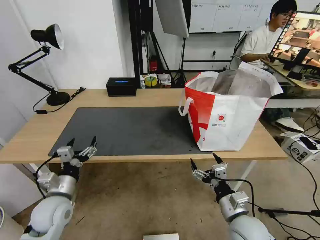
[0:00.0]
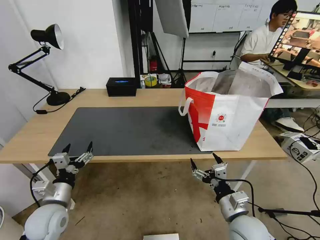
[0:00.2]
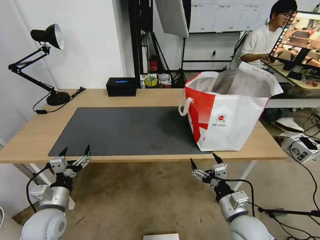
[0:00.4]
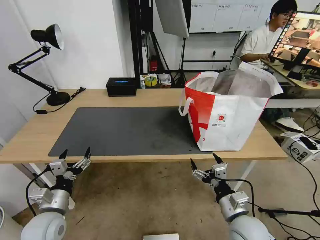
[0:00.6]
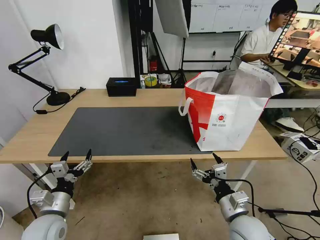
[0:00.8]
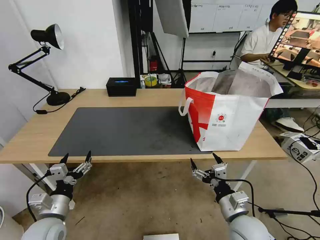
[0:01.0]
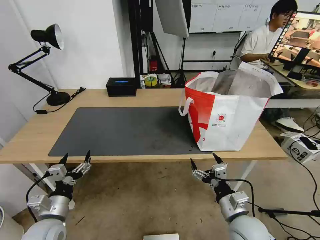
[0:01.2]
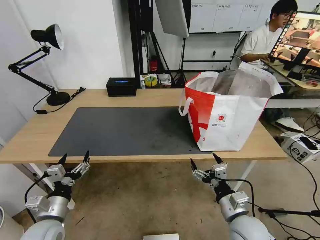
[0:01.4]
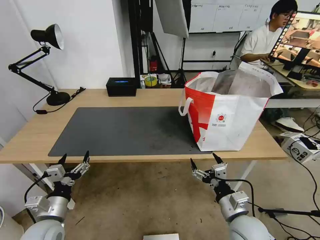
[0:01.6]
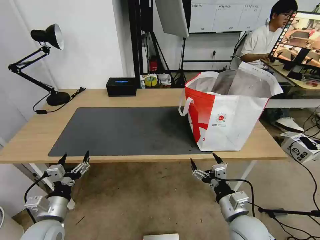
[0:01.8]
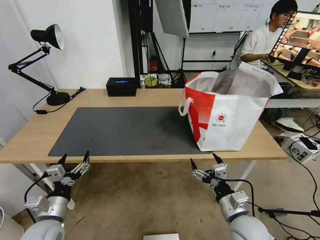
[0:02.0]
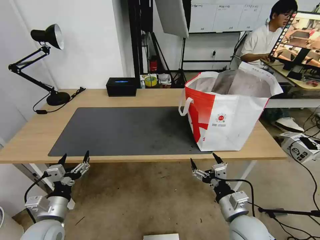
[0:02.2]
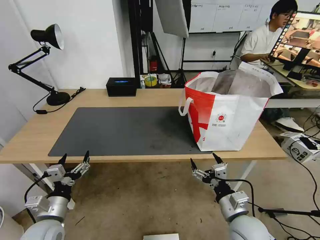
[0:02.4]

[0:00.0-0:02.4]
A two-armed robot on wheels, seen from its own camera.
Task of the whole recording: Pick up the trash from the table and place it into the takeout bag.
0:00.0 to 0:01.2: The left gripper changes place by roughly 5 cm.
0:01.2 to 0:02.4: Neither gripper changes place.

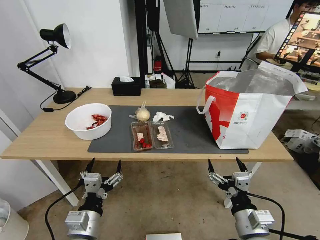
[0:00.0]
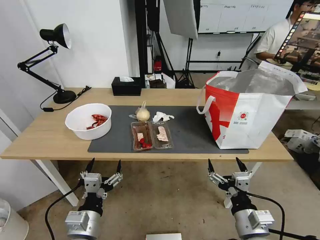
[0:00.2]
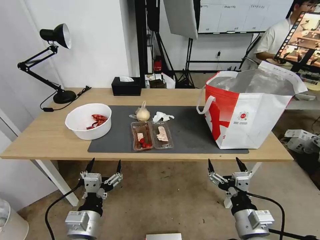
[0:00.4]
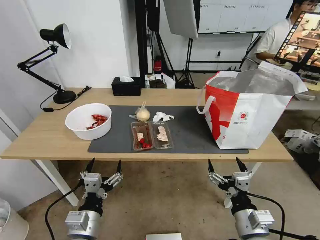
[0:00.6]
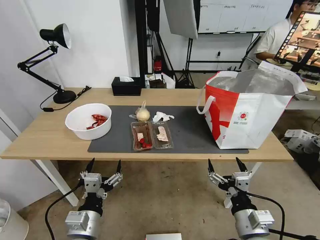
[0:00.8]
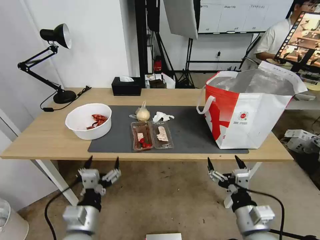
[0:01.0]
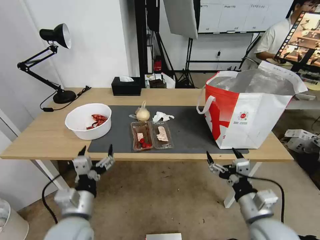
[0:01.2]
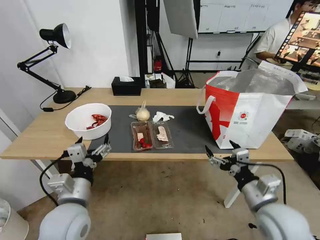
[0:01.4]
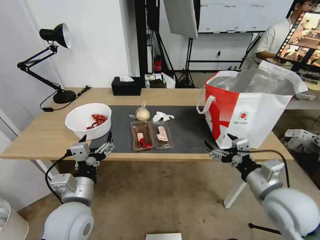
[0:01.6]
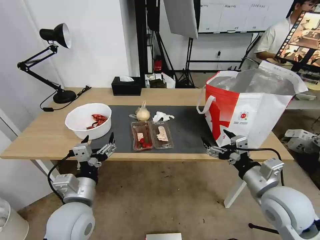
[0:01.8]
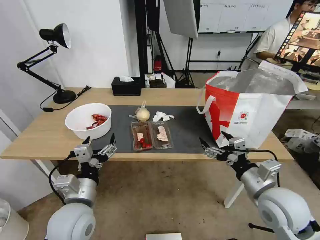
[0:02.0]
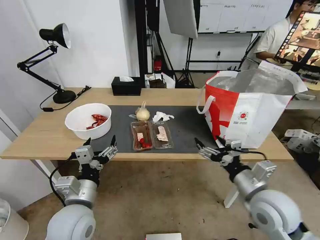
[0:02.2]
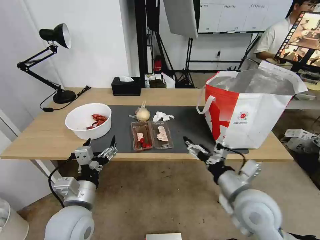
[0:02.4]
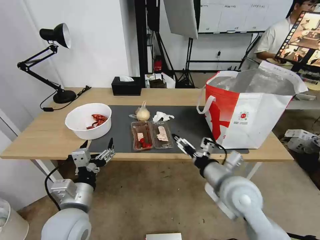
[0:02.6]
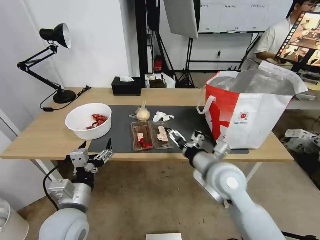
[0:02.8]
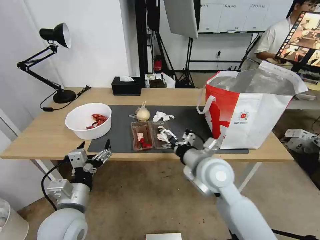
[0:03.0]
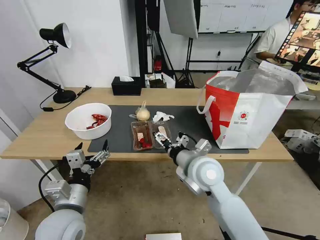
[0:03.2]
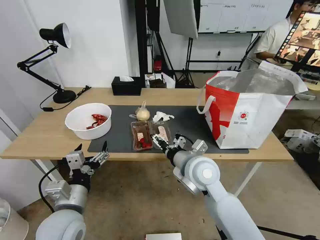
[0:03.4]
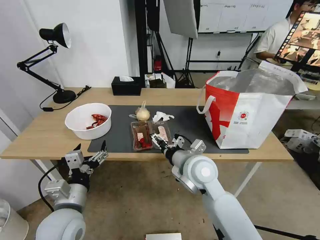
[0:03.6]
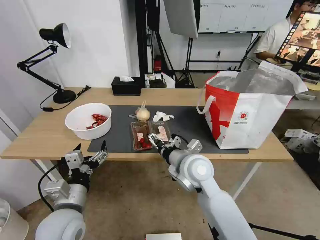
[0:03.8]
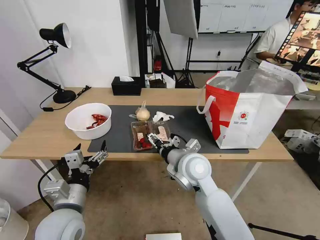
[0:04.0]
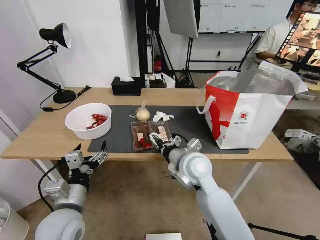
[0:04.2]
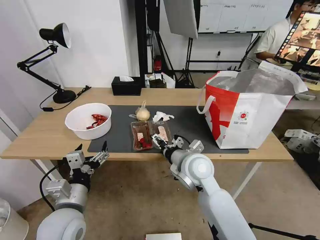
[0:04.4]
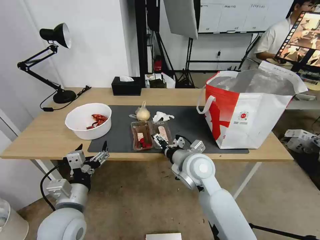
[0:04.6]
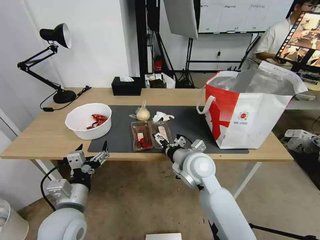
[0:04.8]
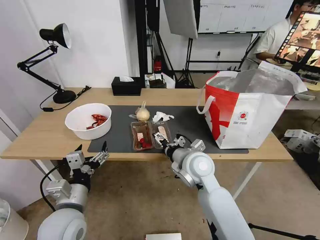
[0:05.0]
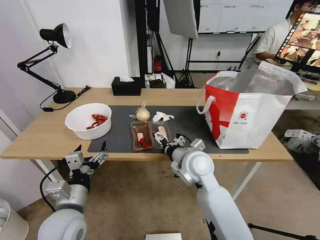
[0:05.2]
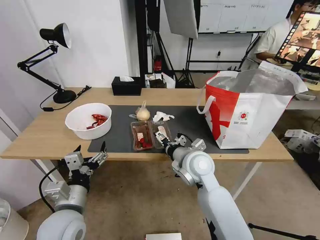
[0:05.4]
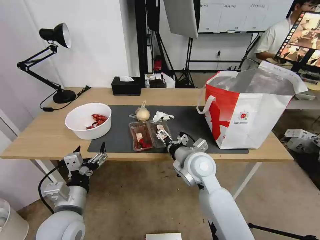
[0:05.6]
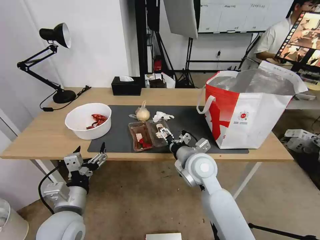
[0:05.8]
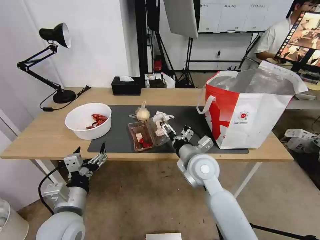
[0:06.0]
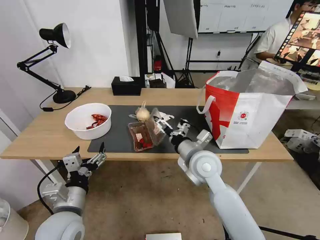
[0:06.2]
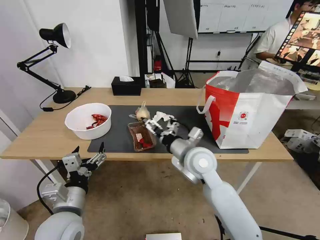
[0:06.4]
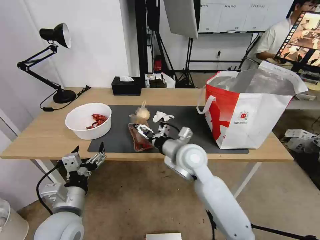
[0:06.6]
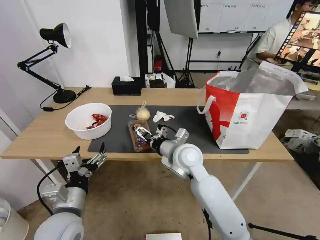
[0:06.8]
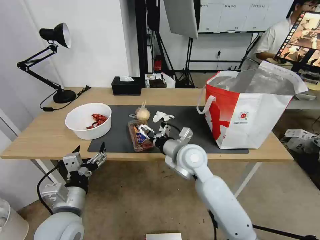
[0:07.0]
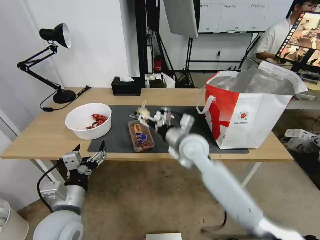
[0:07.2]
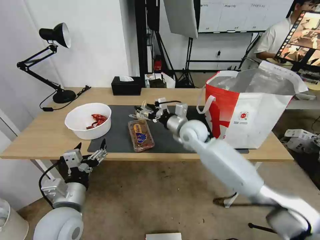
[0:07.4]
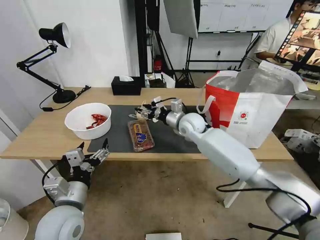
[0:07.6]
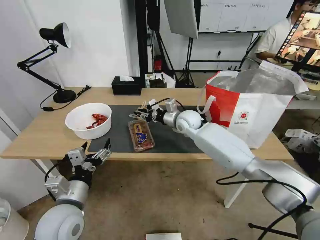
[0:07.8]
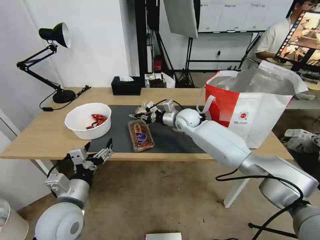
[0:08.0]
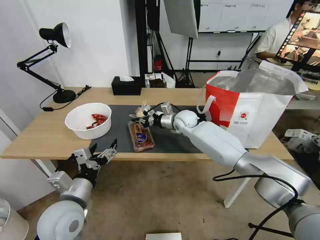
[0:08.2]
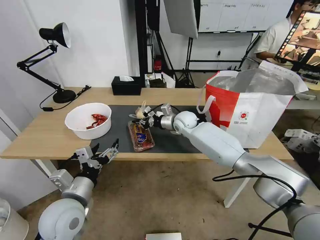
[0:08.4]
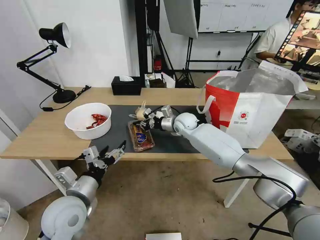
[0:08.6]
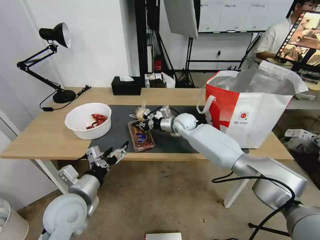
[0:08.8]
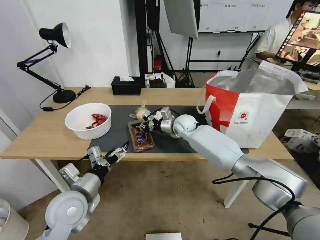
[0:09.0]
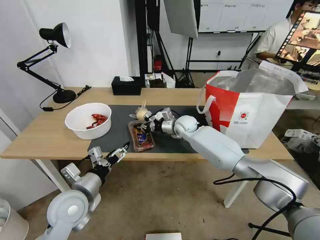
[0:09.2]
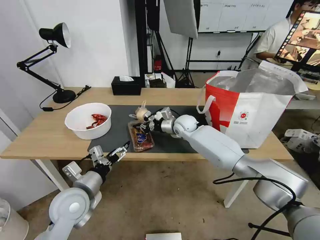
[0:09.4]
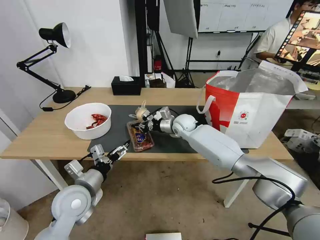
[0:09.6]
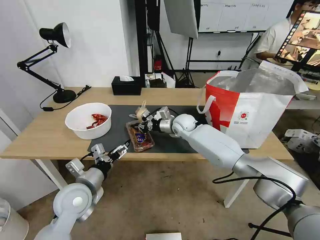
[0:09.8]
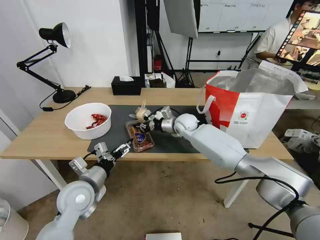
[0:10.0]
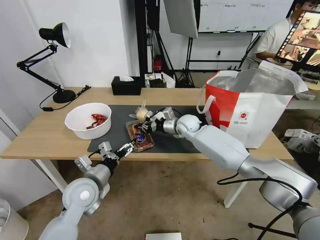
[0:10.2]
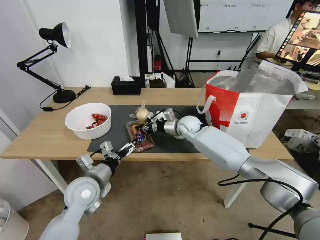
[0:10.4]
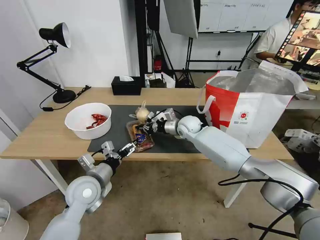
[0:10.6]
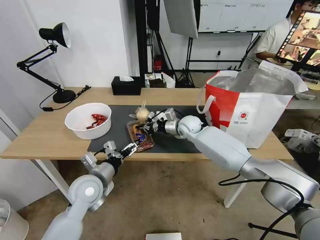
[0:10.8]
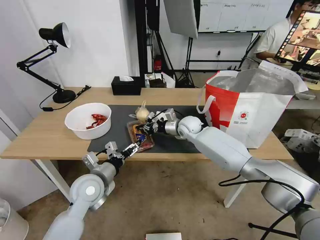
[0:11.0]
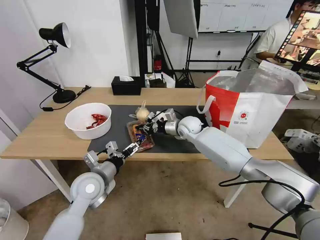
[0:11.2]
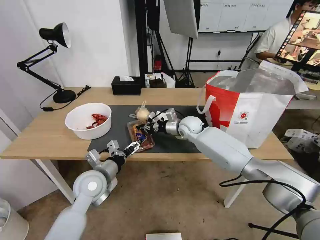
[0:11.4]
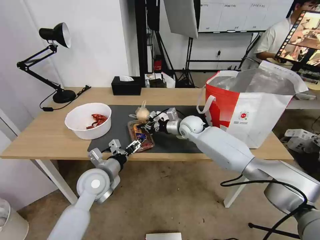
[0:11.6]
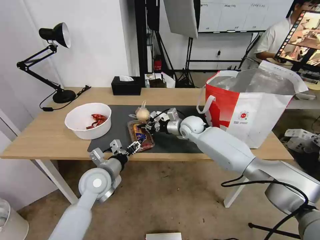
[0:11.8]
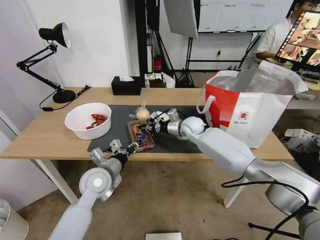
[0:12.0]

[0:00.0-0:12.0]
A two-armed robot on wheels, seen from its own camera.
Task of the whole recording: Pick up the trash from the table and place it into the takeout bag.
0:01.6 to 0:03.0: The right gripper moves to the left and forward, approximately 20 cm.
0:03.0 to 0:04.4: The right gripper shifts by some 5 cm.
0:04.4 to 0:06.0: The grippers stay close to where they were, moving slightly.
0:06.0 to 0:07.6: The right gripper shifts approximately 15 cm forward, and closes up.
0:07.6 to 0:09.0: The right gripper travels forward and downward by approximately 5 cm, and closes its fingers.
0:09.0 to 0:10.4: The left gripper moves roughly 5 cm.
0:10.4 to 0:12.0: The left gripper closes up.

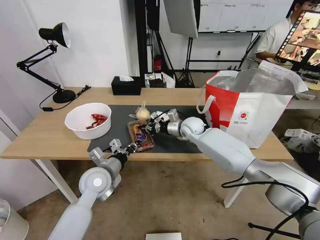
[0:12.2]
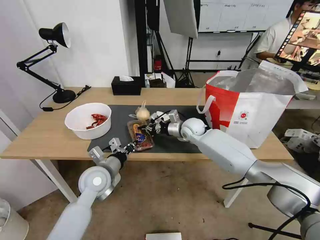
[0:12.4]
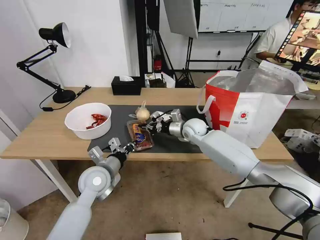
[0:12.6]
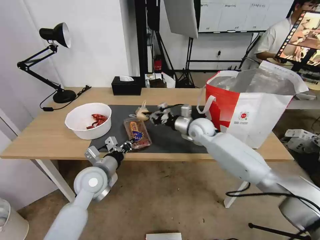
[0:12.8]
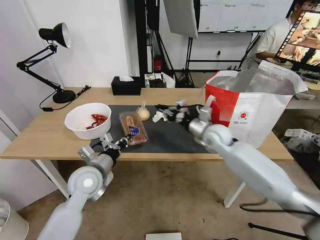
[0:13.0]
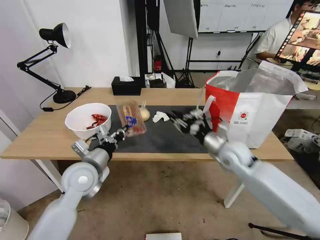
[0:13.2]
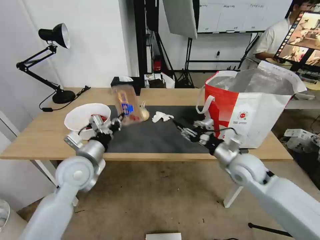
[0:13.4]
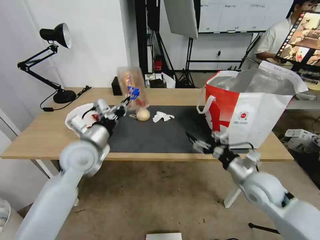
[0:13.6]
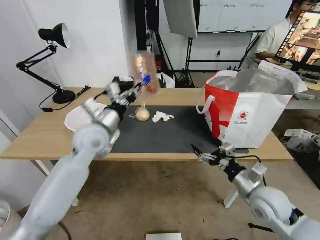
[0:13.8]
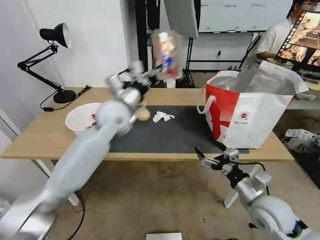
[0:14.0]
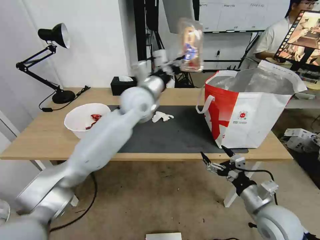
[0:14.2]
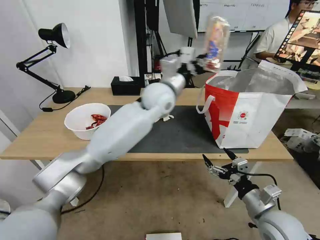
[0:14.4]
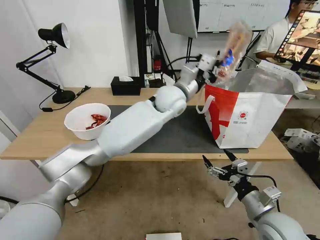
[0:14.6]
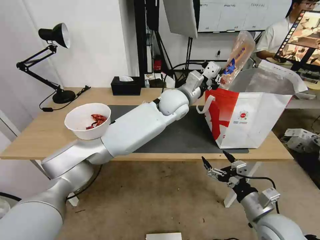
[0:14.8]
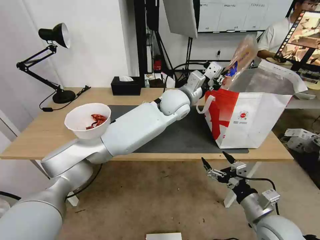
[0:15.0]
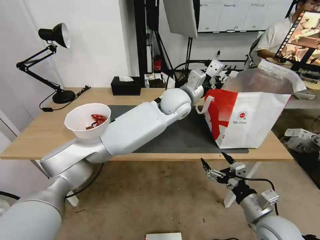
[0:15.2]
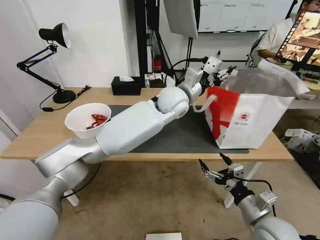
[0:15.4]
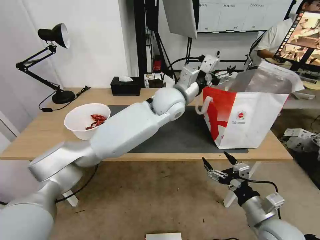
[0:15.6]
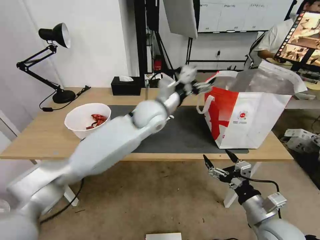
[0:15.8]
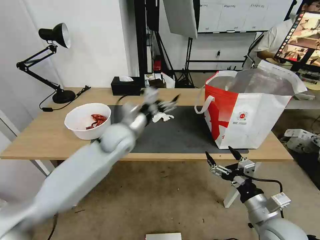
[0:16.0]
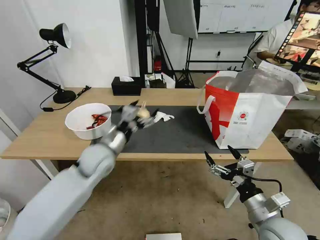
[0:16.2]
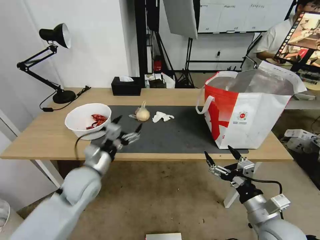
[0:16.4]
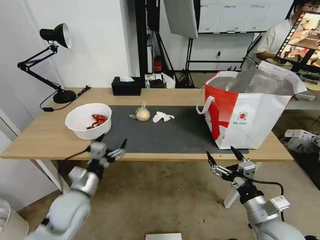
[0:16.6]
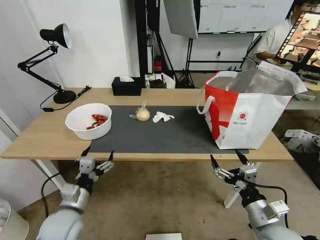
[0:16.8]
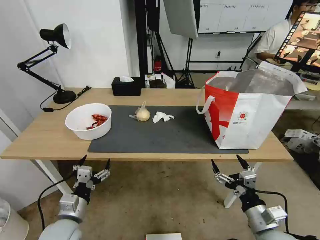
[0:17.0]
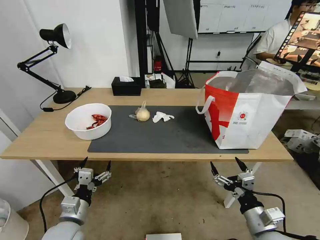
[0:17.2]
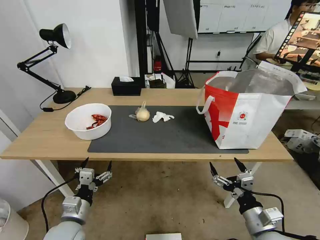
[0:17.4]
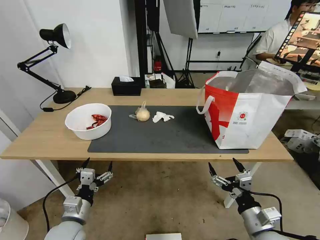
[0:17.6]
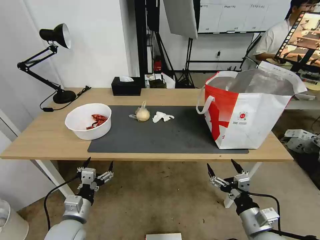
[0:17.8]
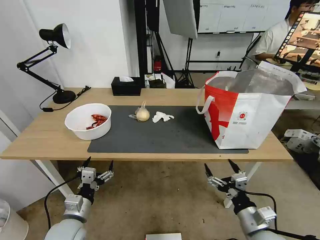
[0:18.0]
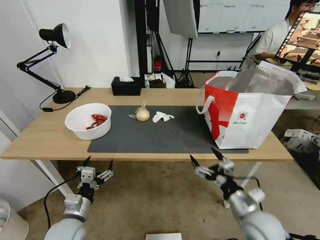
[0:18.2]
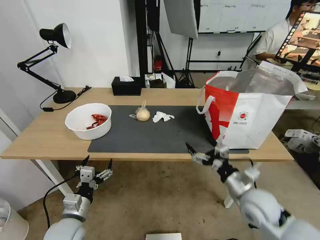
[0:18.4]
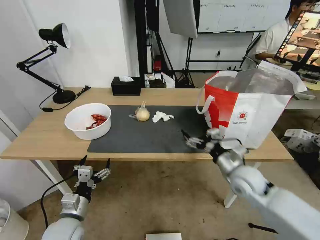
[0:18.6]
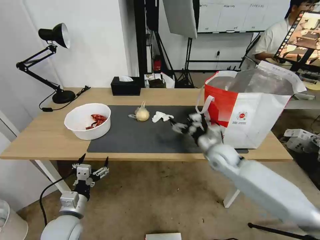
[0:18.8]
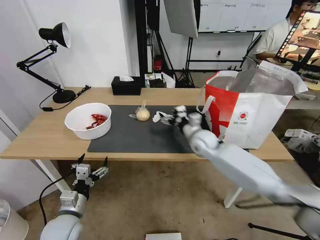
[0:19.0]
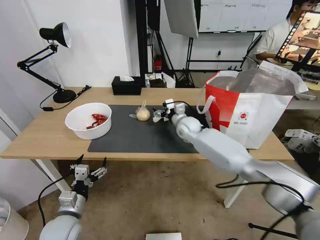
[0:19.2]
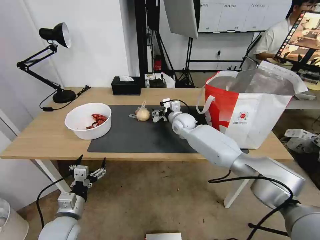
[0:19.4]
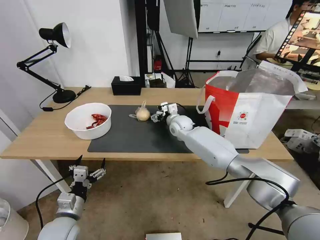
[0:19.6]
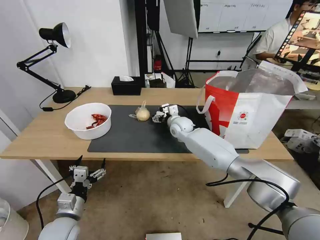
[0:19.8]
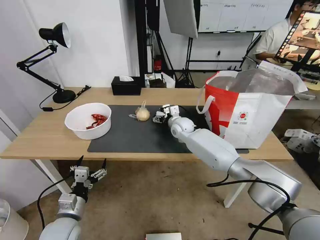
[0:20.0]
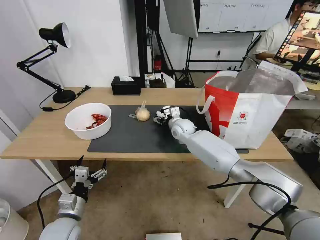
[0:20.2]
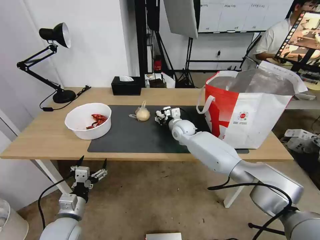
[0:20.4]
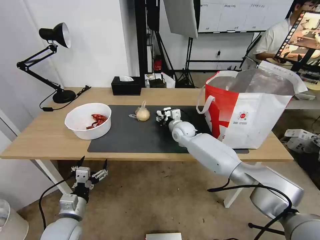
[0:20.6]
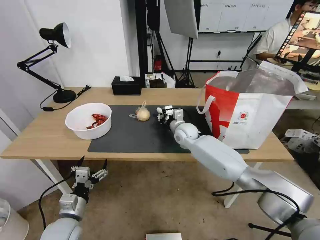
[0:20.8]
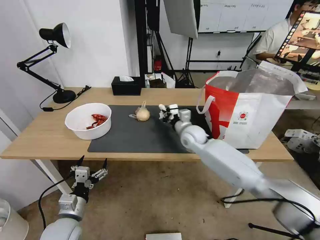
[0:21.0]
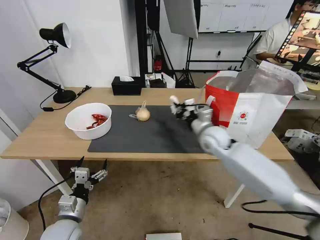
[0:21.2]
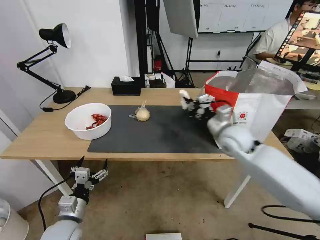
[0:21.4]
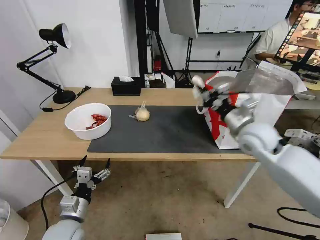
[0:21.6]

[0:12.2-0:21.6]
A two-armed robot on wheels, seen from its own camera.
Task of the whole recording: Pick up the trash from the table and place it into the takeout bag.
0:12.2 to 0:13.8: The left gripper travels upward and forward by roughly 15 cm. The right gripper heads backward and to the right, covering roughly 35 cm, and opens its fingers.
0:13.8 to 0:15.4: The left gripper shifts about 25 cm to the right and forward, and opens its fingers, while the right gripper goes about 5 cm backward.
0:15.4 to 0:17.0: The left gripper moves to the left, backward and downward, about 50 cm, and opens its fingers.
0:17.0 to 0:18.4: The right gripper goes approximately 10 cm forward.
0:18.4 to 0:20.0: The right gripper travels forward and to the left by about 35 cm.
0:20.0 to 0:21.6: The right gripper goes about 30 cm to the right, backward and upward, and closes its fingers.
